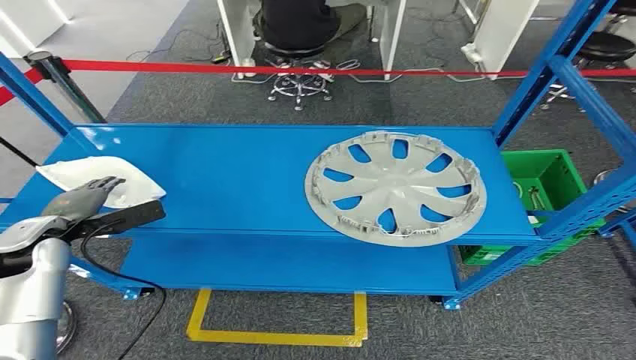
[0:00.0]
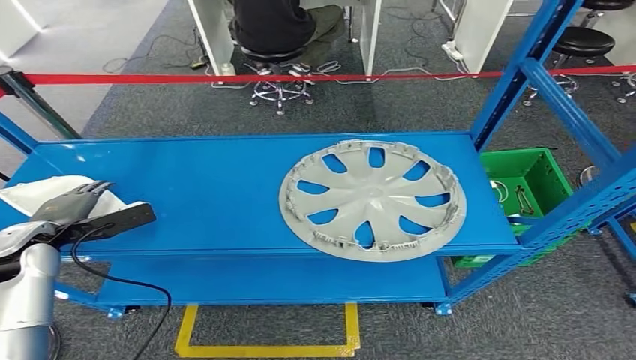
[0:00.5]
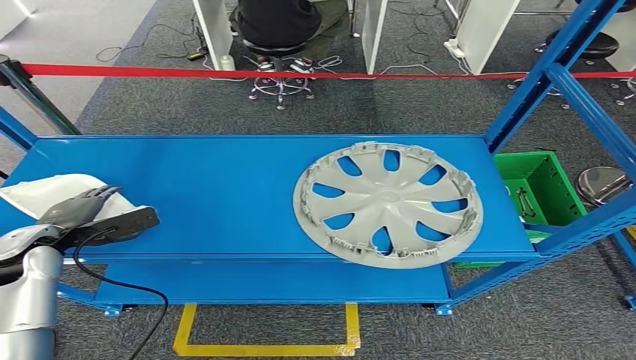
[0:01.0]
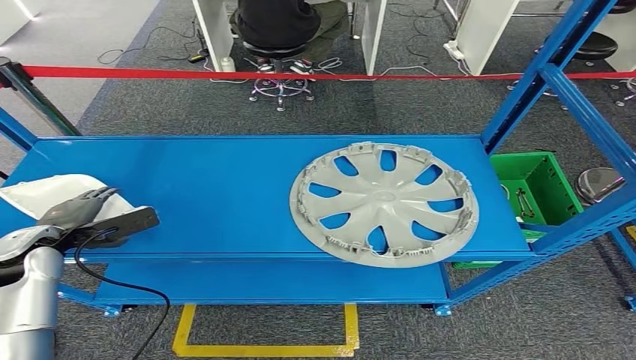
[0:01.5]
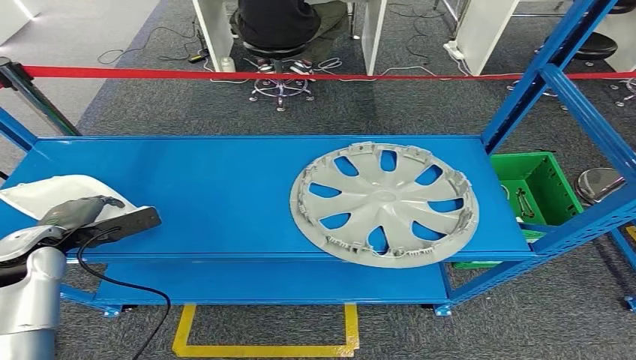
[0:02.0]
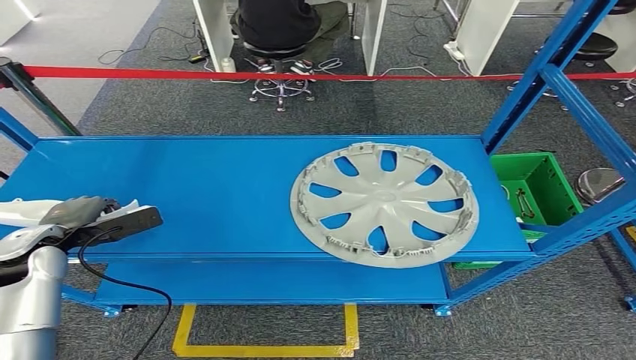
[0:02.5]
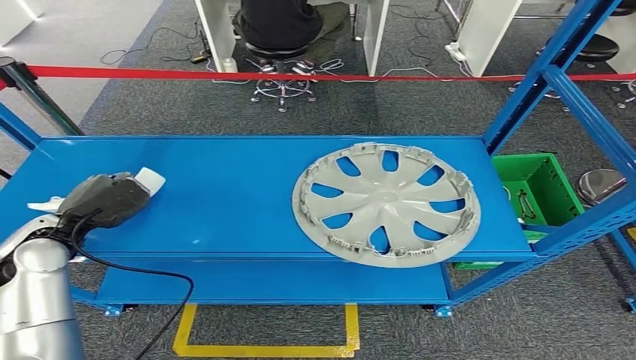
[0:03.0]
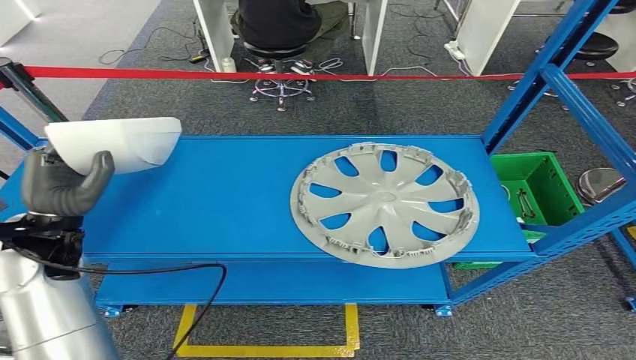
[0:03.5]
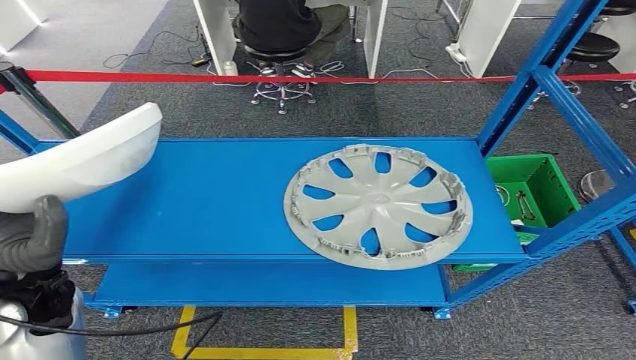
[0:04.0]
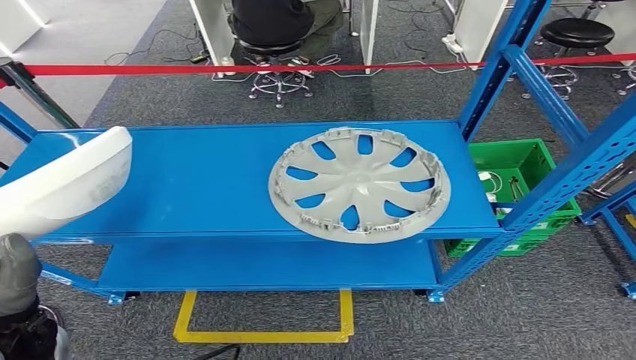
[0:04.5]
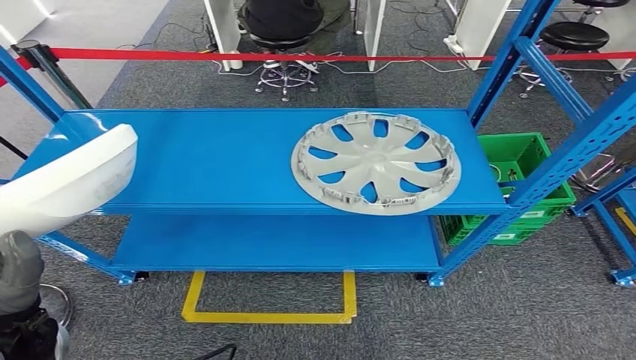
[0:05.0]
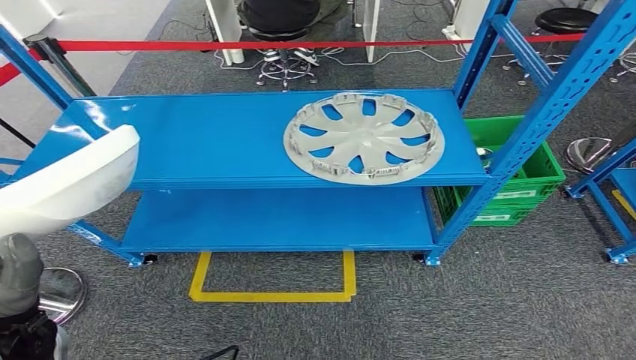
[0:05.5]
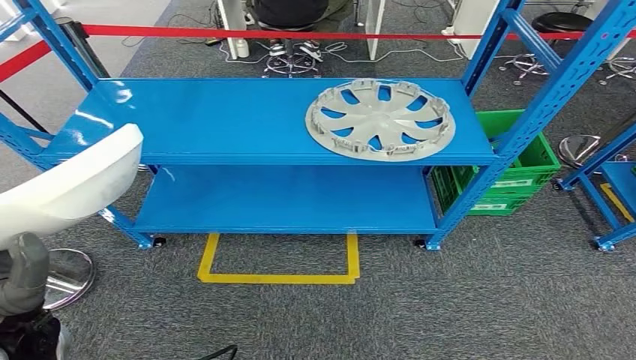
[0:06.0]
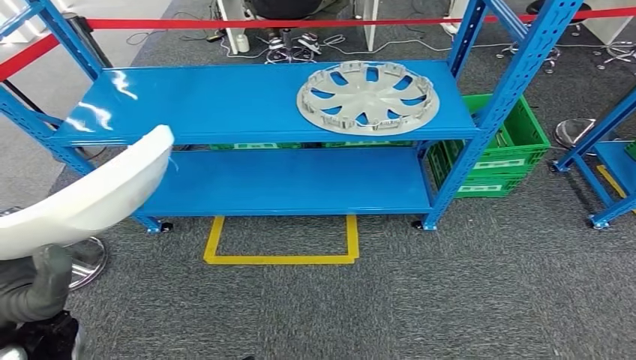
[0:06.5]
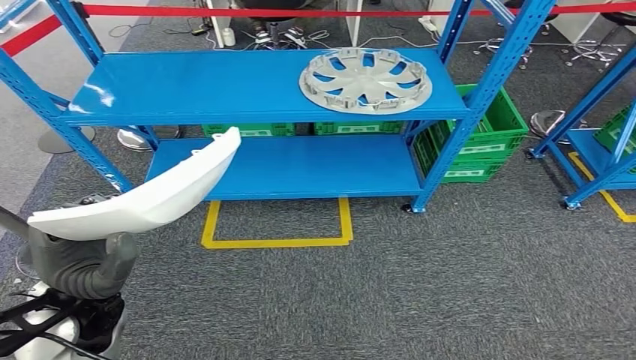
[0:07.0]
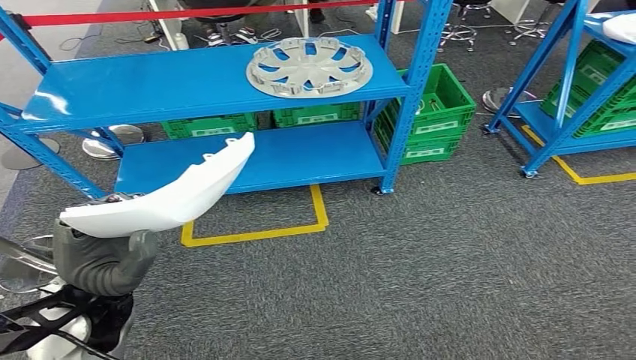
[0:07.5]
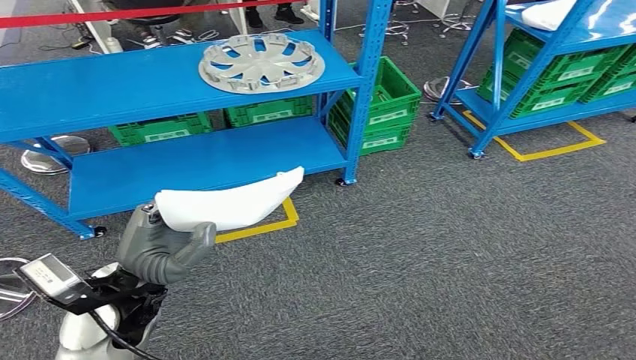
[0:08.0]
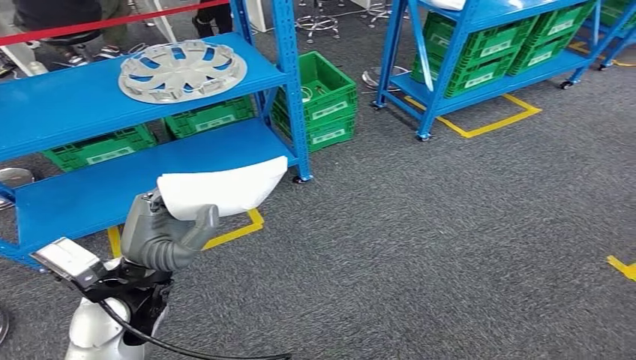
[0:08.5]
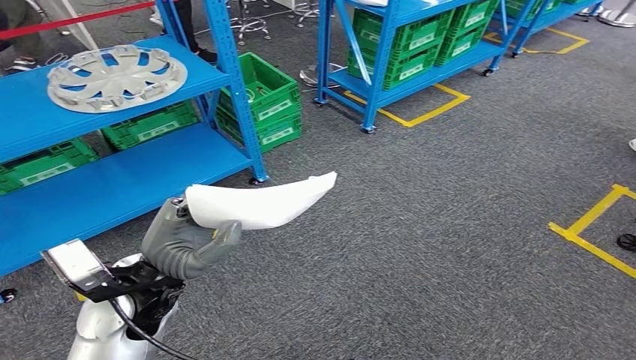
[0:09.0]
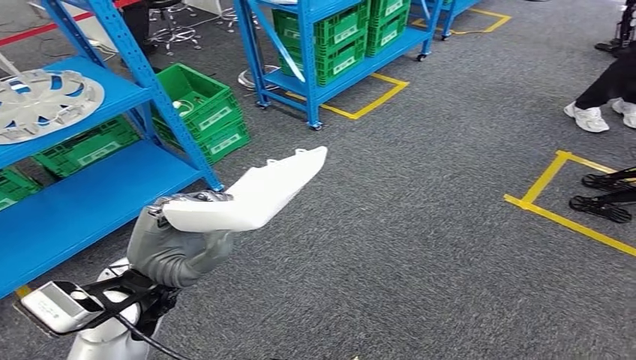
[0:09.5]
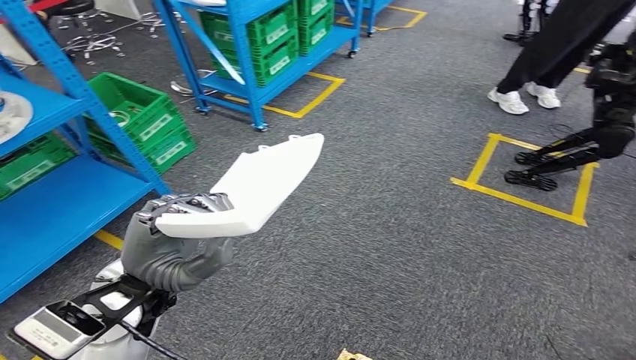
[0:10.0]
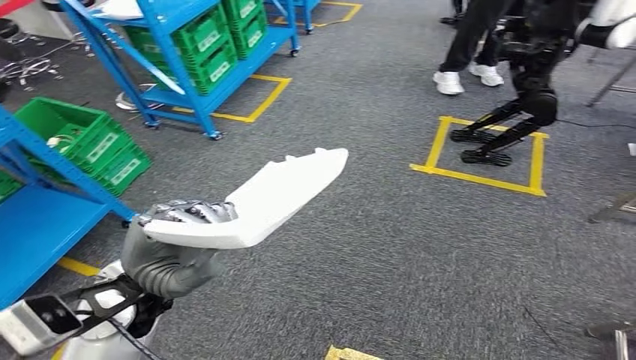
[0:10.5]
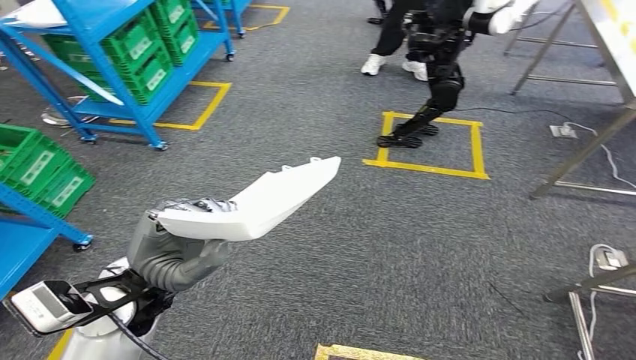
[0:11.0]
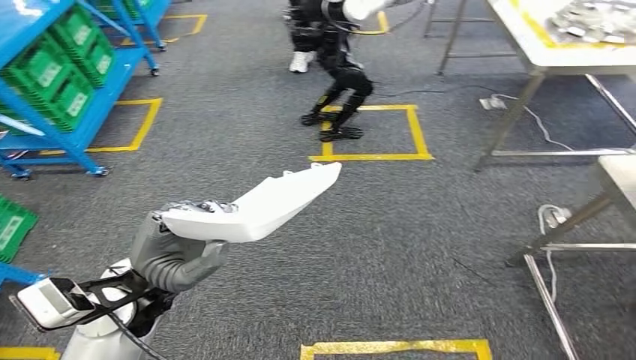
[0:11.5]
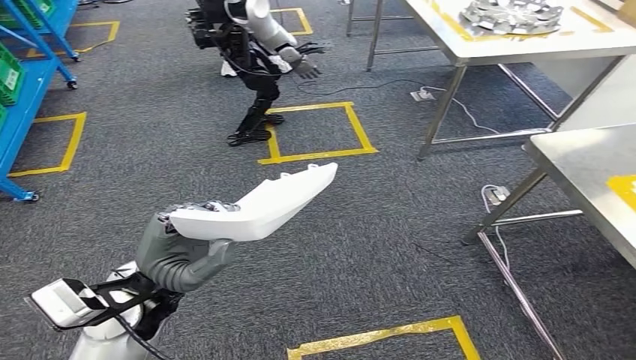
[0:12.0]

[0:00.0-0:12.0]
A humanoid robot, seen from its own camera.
Step, 0:00.0 to 0:04.0: Pick up the small component from the shelf.

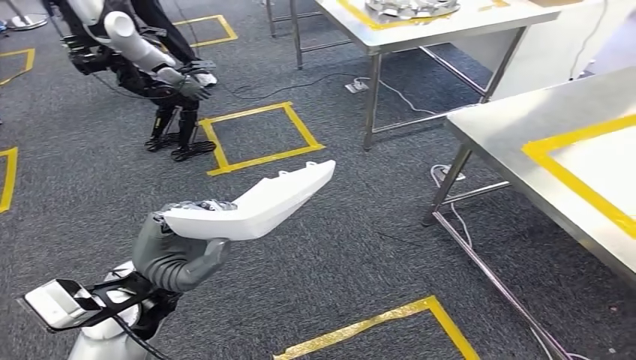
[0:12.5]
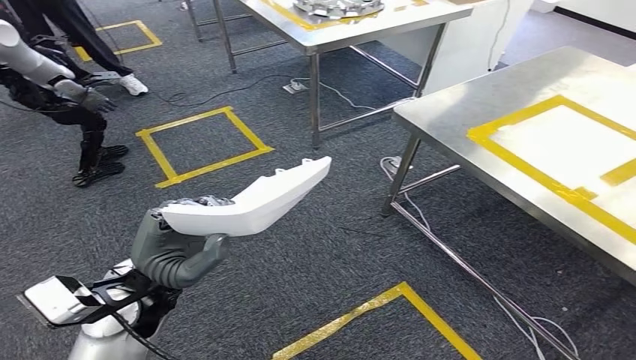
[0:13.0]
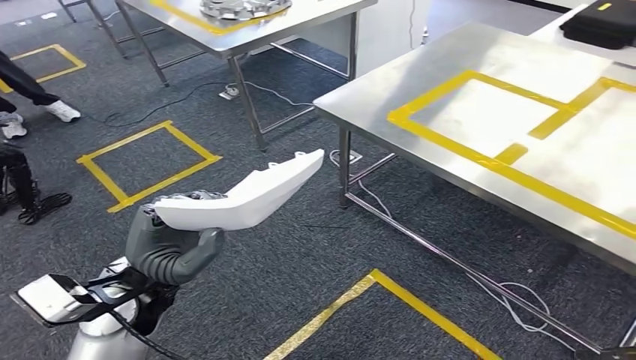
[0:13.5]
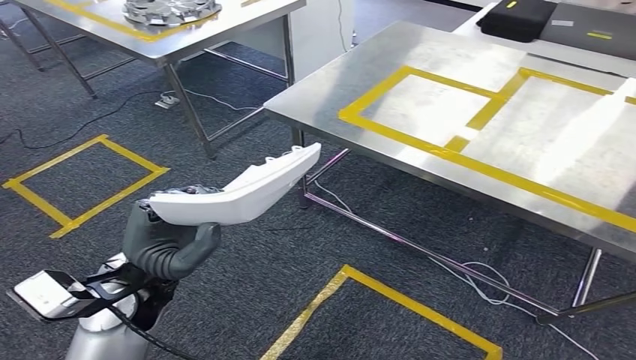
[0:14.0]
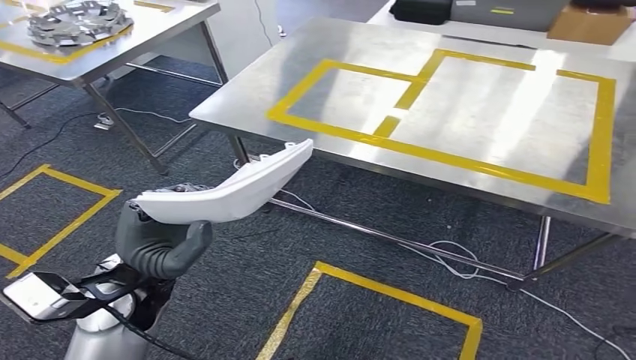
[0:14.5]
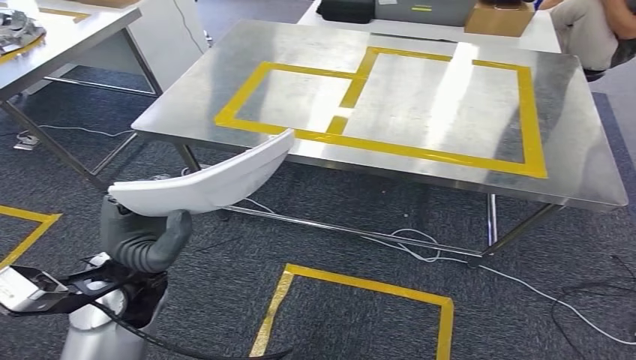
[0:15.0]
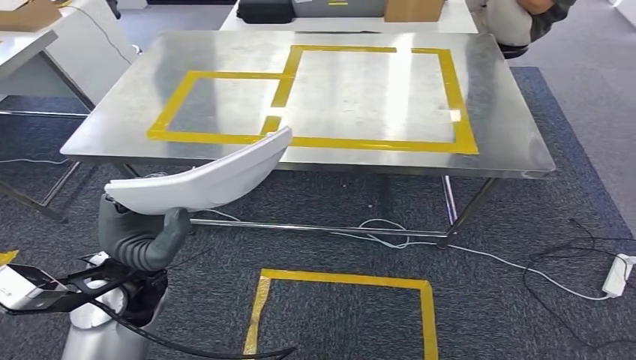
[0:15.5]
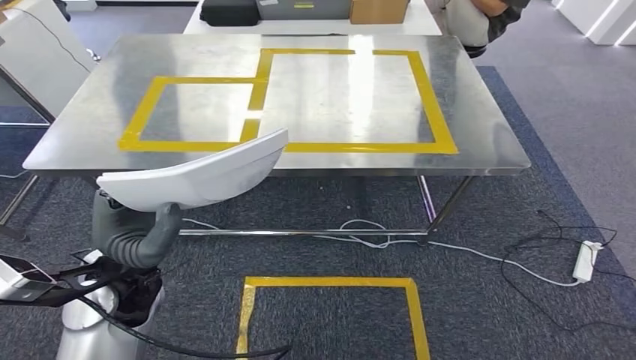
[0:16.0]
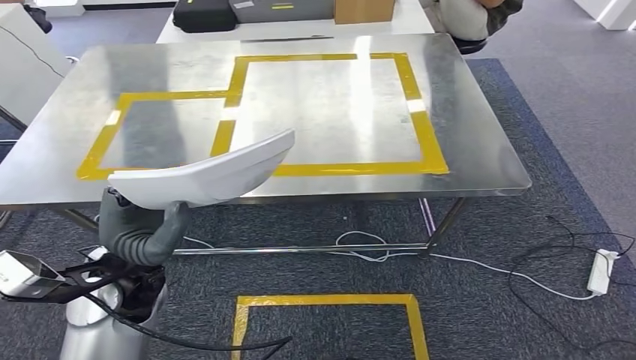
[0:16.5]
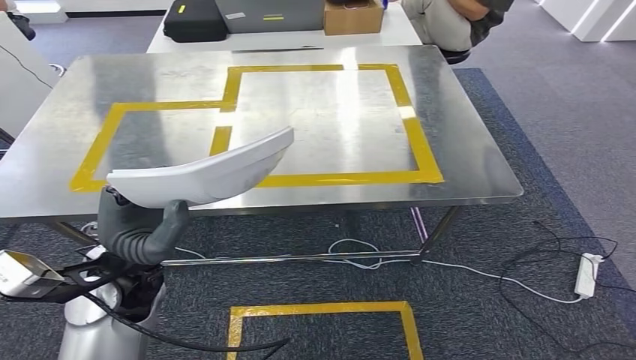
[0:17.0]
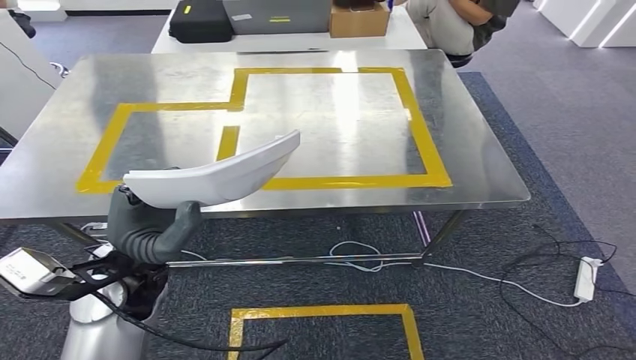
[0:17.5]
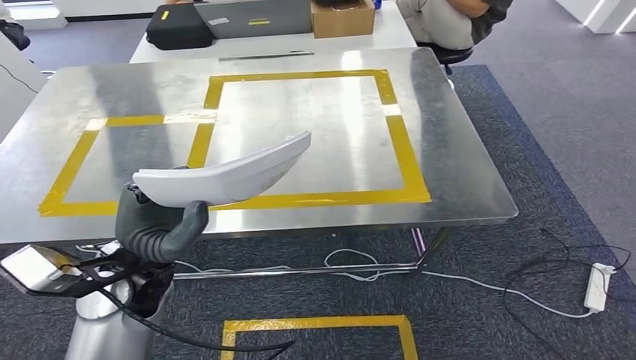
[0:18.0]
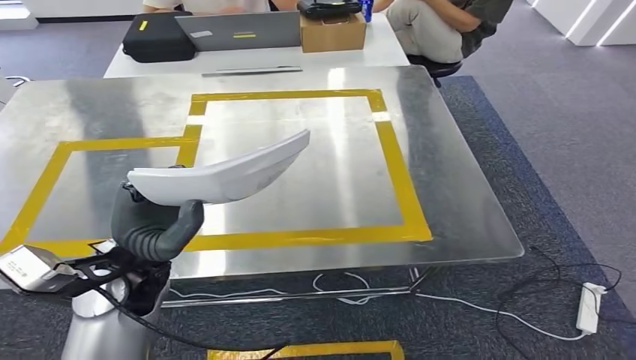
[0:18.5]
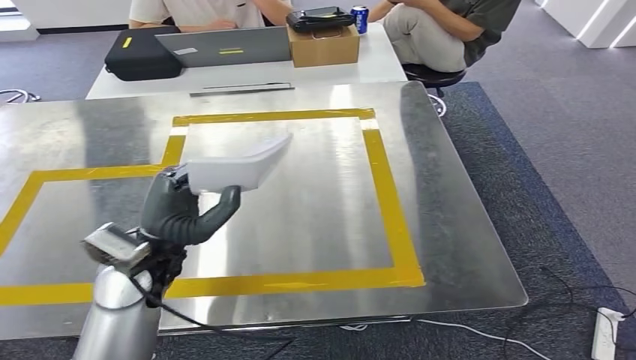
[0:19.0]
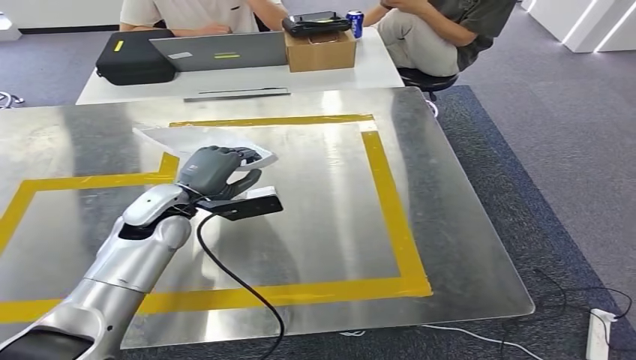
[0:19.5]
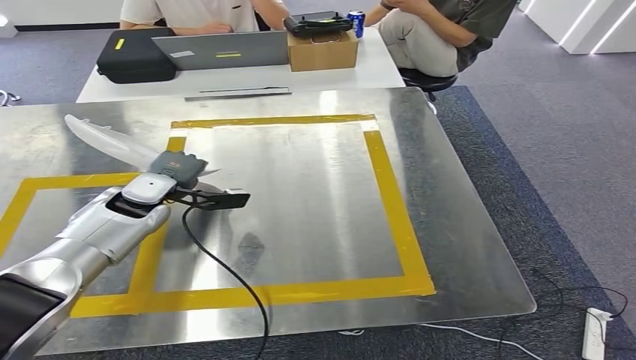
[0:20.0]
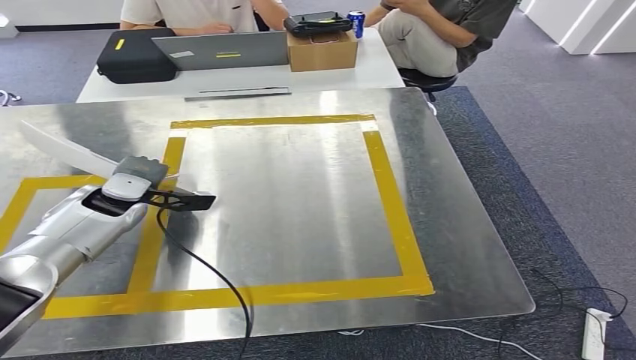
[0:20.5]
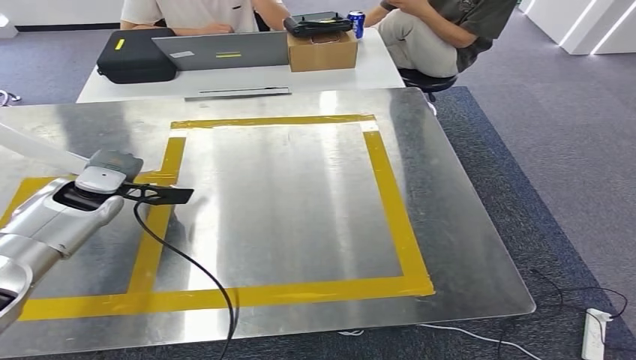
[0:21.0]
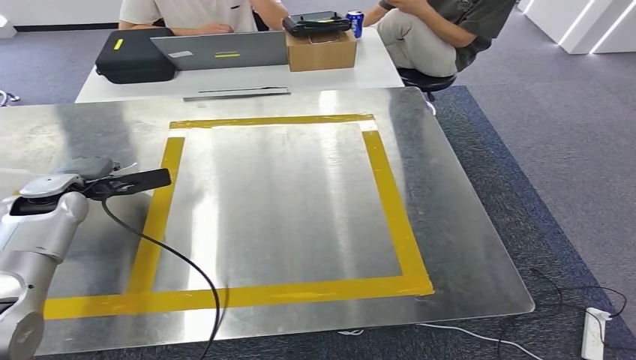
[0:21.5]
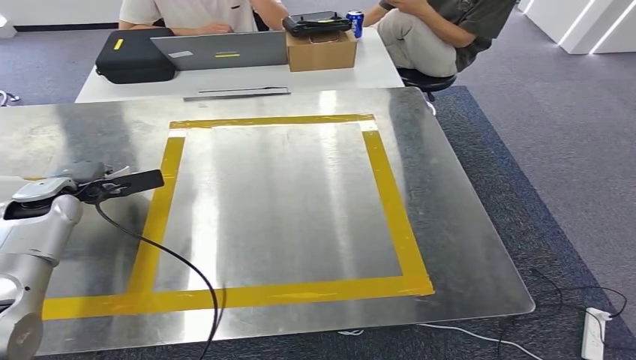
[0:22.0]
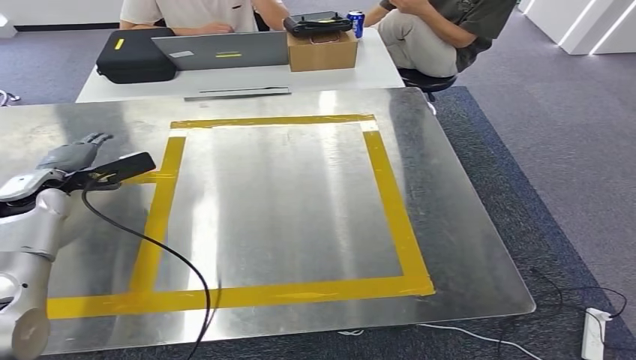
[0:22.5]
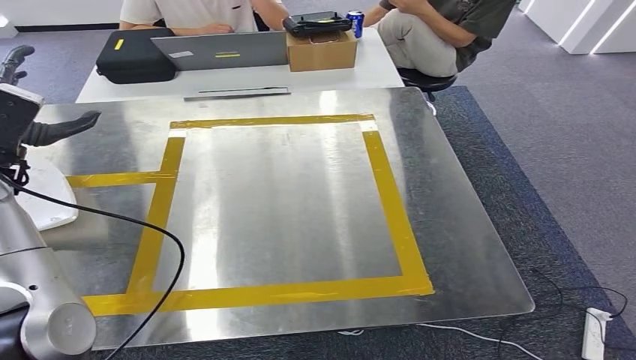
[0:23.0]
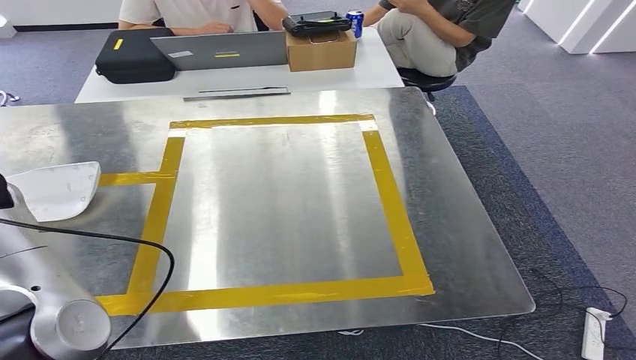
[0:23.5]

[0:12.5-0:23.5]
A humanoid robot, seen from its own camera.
Step, 0:12.5 to 0:16.0: Move the small component to the workbench.
0:20.0 to 0:21.5: The left hand is displaced to the left by about 15 cm.
0:21.5 to 0:23.5: The left hand goes some 15 cm upward and backward.
